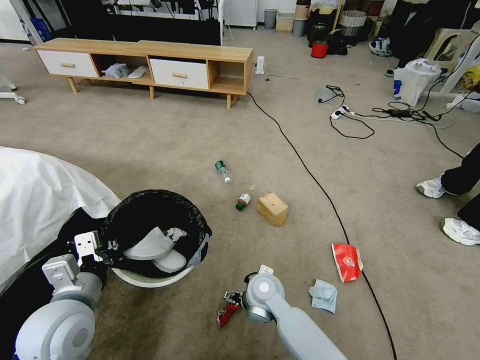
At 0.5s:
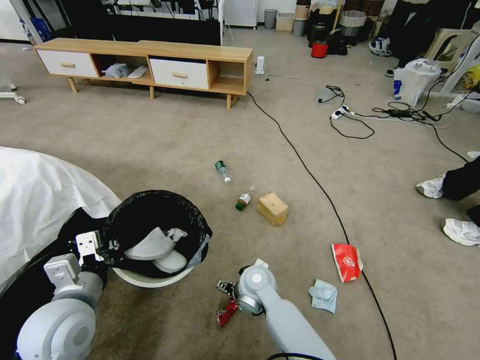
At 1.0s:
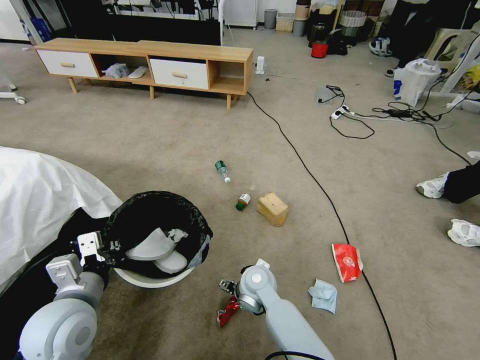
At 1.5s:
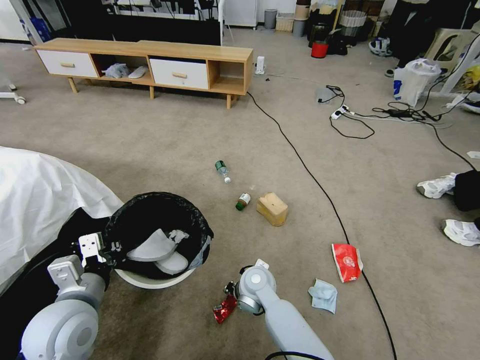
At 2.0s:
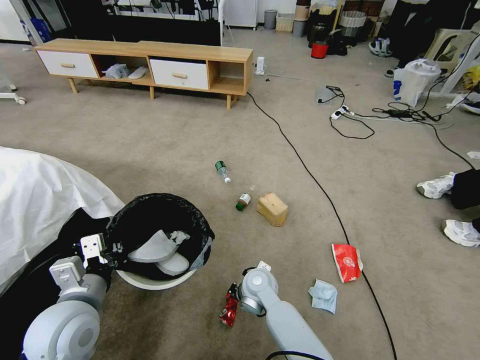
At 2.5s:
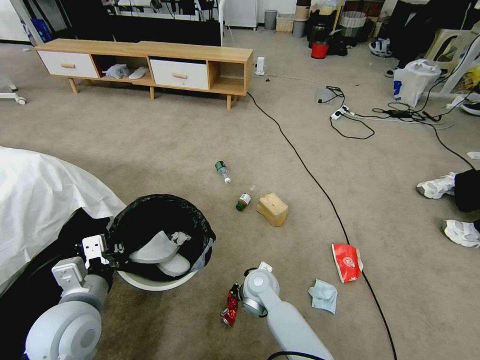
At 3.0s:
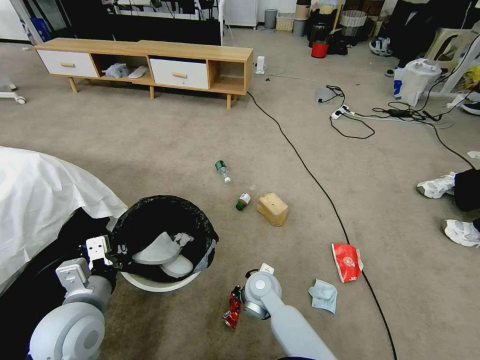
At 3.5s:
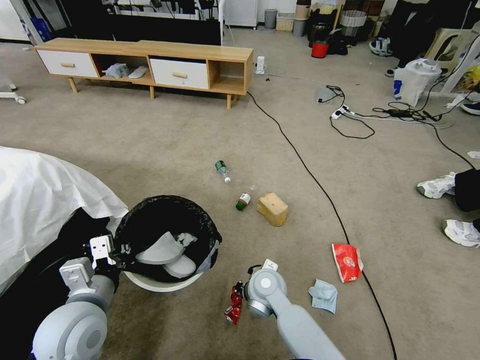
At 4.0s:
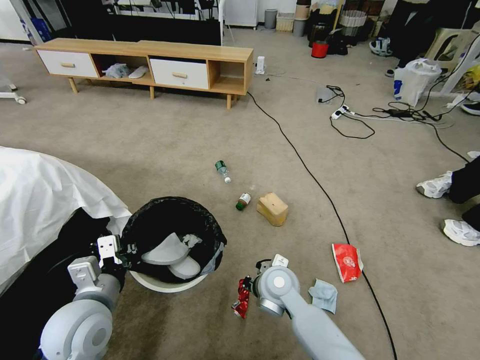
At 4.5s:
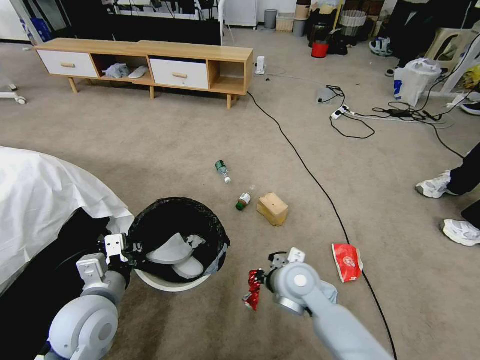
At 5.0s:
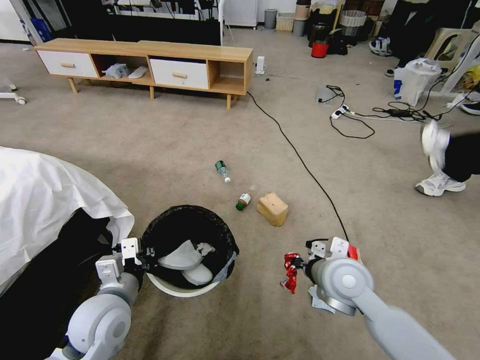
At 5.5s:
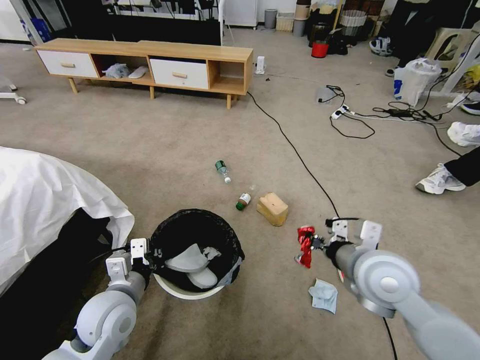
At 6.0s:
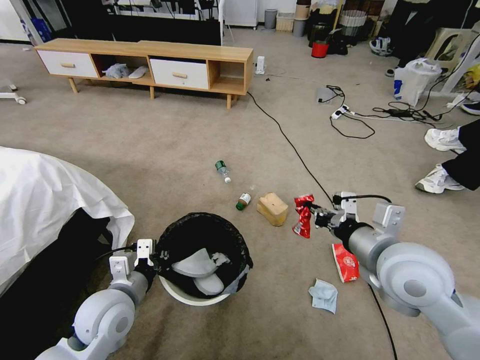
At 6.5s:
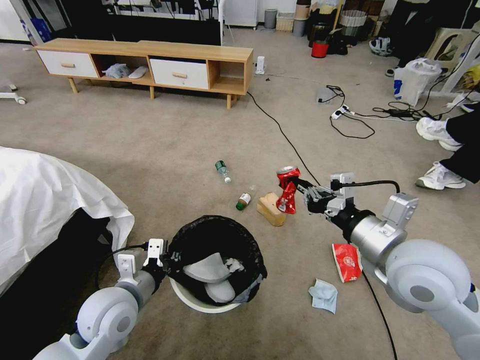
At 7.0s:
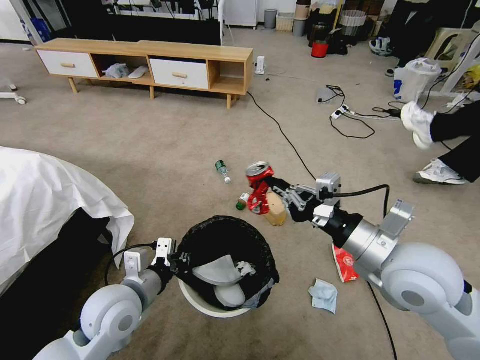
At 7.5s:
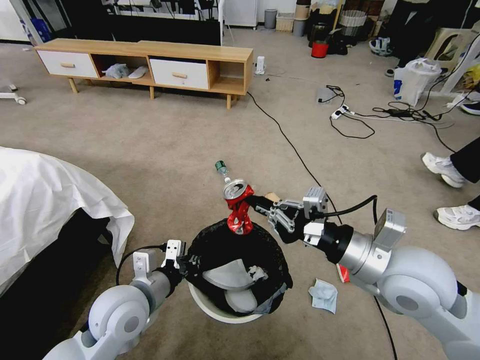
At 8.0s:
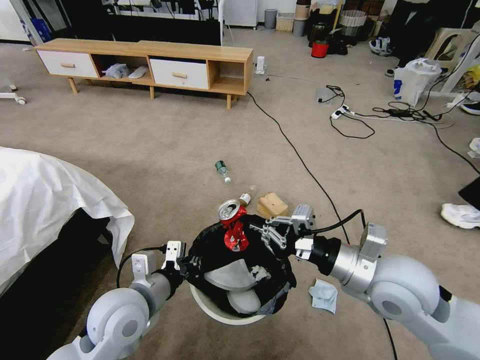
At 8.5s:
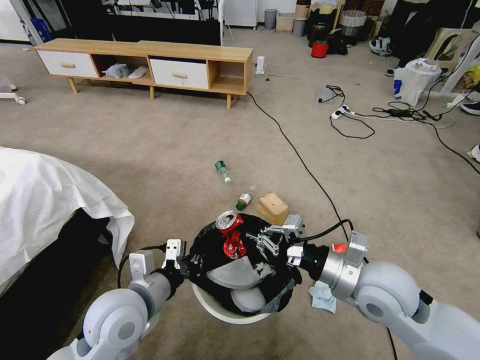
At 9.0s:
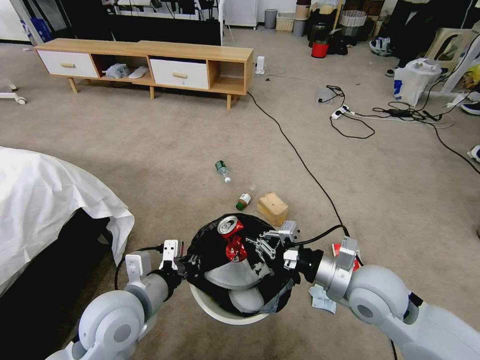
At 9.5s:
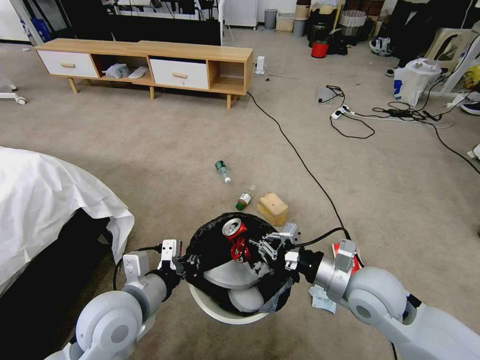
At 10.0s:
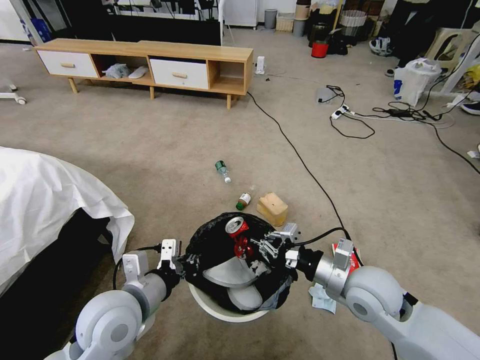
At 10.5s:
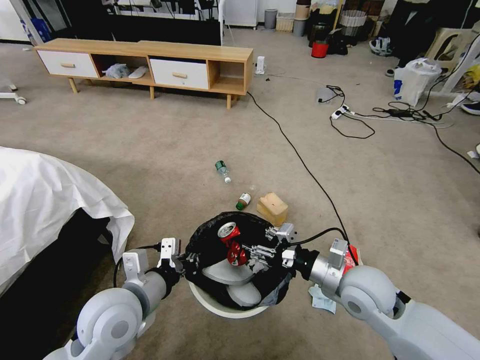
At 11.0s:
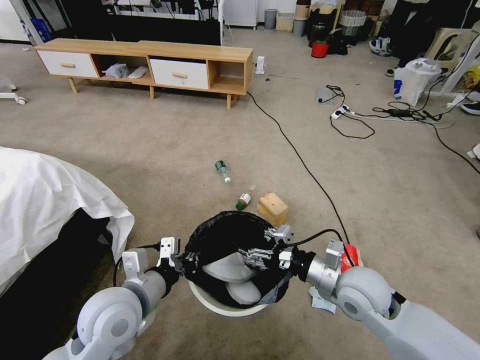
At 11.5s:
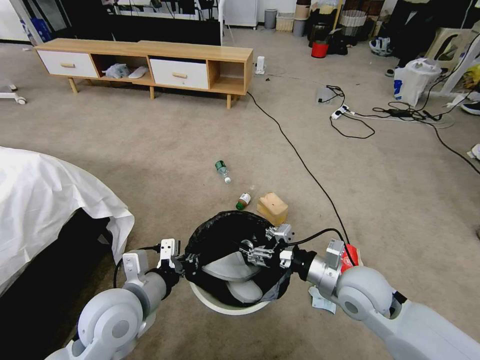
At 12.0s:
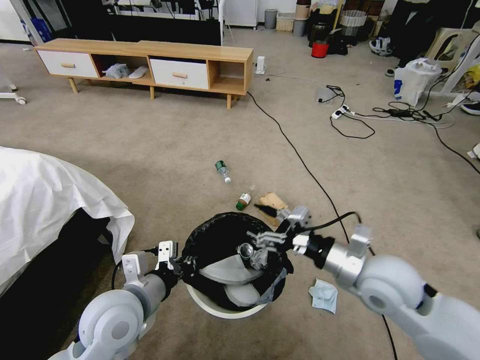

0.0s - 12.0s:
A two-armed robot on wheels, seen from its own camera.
Task of the whole recording: Pick up the trash bin and place the garbage on the floor into it.
0.0s - 2.0s: The right gripper closes its fingers.
2.0s - 4.0s: The right gripper goes roughly 5 cm upward.
4.0s - 6.0s: The right gripper is displaced upward and to the right by approximately 25 cm.
6.0s - 8.0s: The left gripper moves some 5 cm.
8.0s - 10.0s: The right gripper heads downward, covering roughly 10 cm.
10.0s - 12.0s: The left gripper closes its fingers. The right gripper opens up.

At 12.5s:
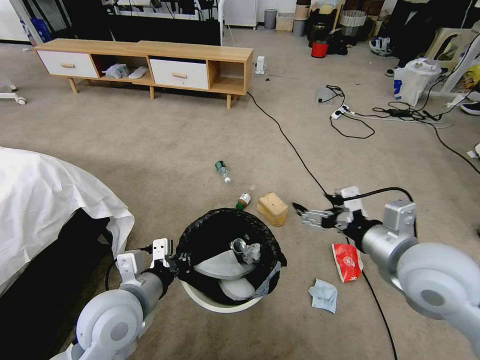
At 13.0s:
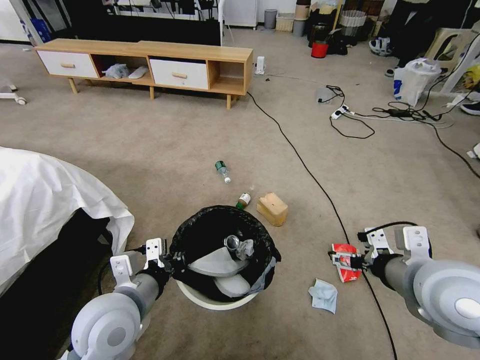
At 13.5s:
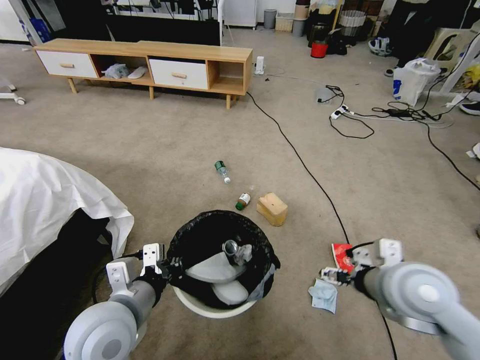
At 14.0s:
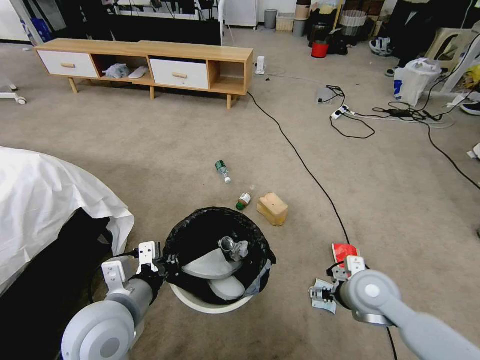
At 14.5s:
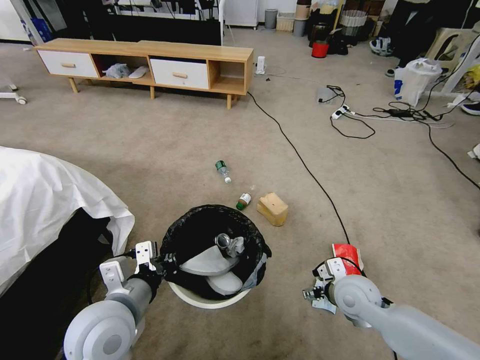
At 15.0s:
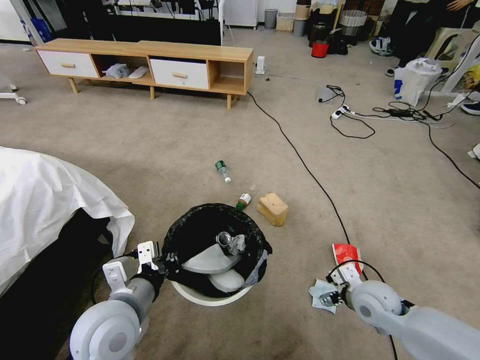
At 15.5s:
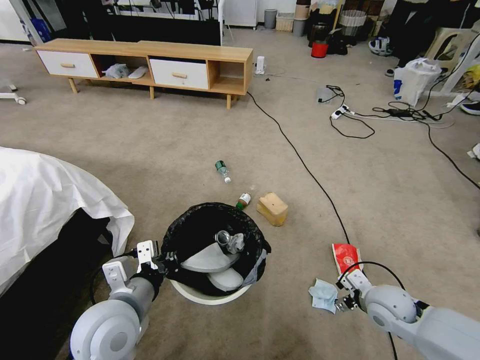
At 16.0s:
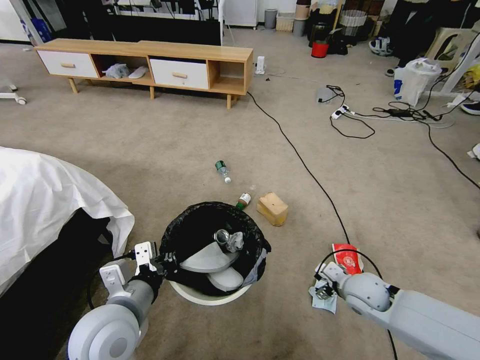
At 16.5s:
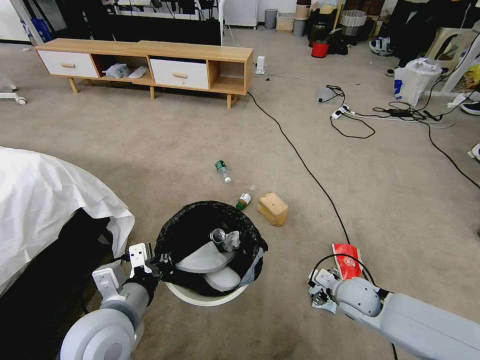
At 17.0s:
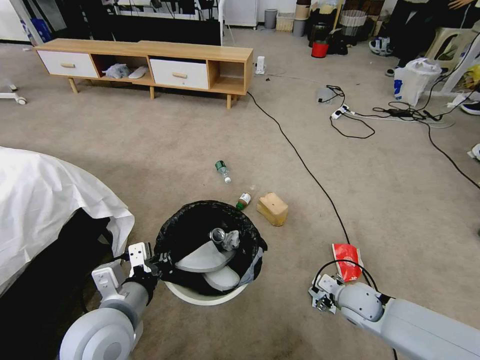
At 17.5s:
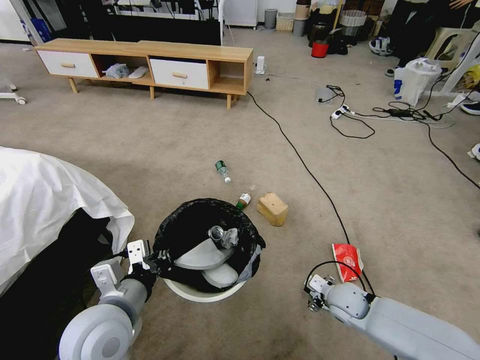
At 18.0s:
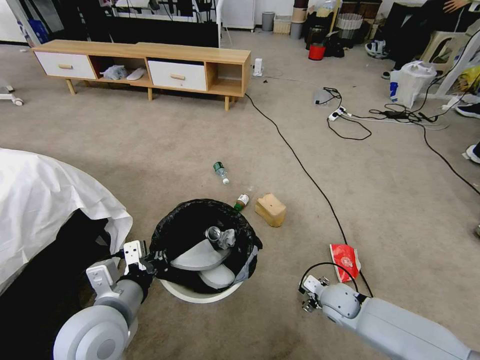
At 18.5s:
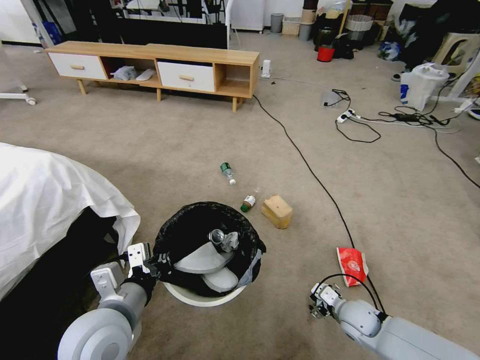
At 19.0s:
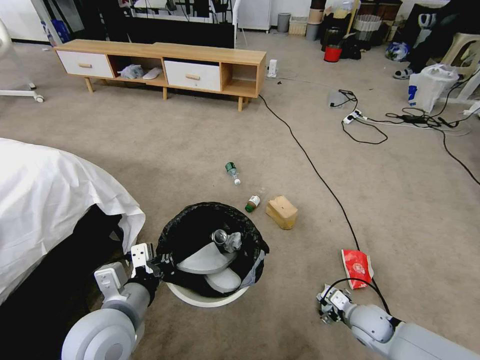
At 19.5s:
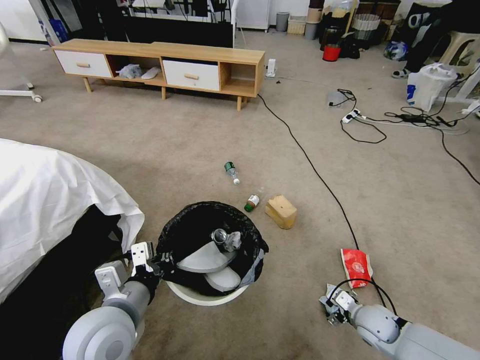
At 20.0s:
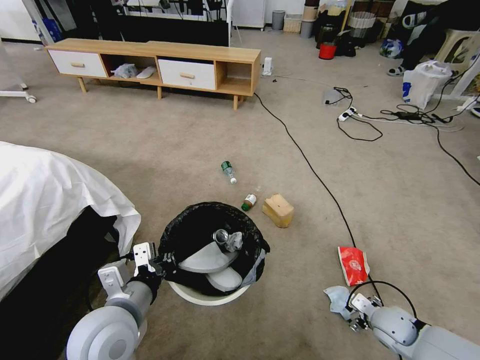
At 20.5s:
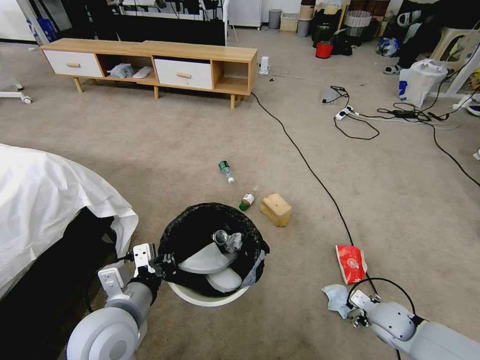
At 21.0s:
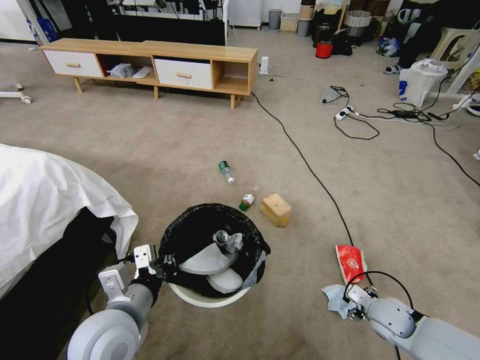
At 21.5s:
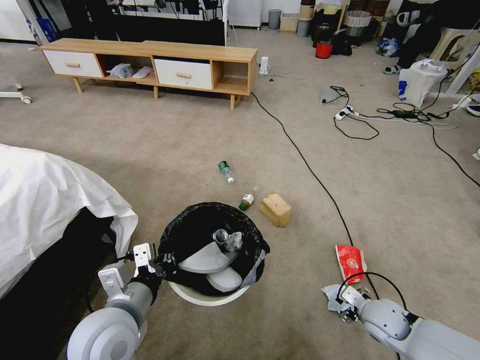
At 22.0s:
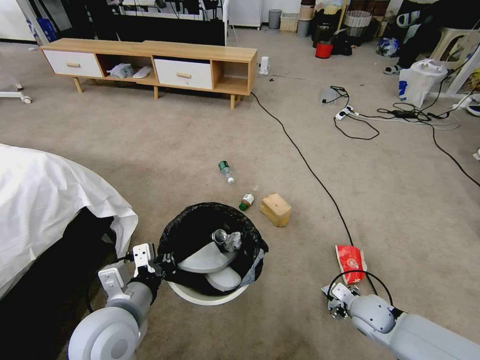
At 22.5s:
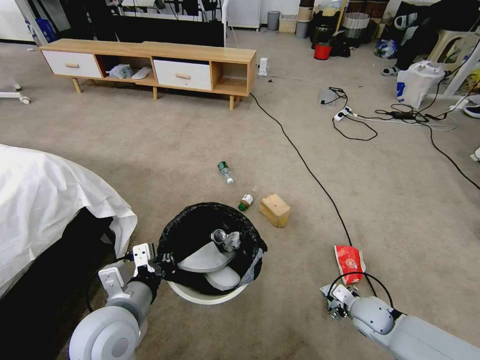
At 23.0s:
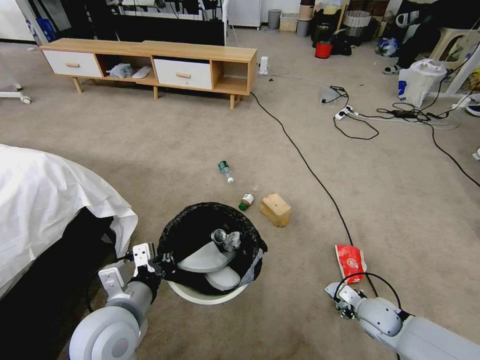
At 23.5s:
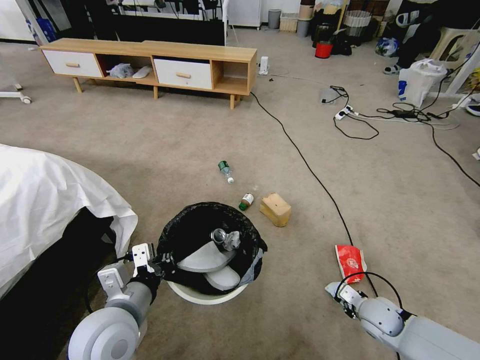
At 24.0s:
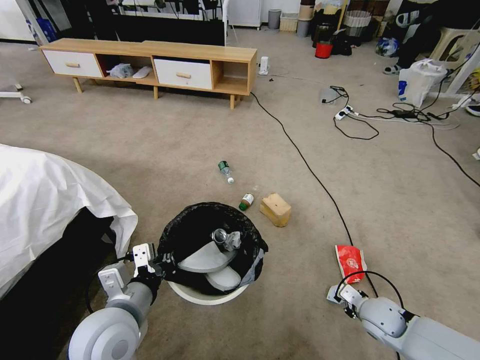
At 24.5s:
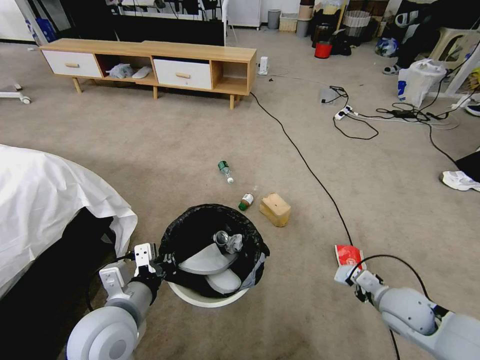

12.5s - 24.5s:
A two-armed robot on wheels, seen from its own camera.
Task of the whole recording: Pick up the trash bin and place the garbage on the floor into it.
12.5s - 14.5s: The right gripper is displaced downward by about 20 cm.
14.5s - 16.5s: The right gripper is displaced downward by some 5 cm.
16.5s - 18.5s: The right gripper moves downward, roughly 5 cm.
18.5s - 20.5s: The right gripper heads to the right, covering roughly 10 cm.
20.5s - 22.5s: The grippers make only small movements.
22.5s - 24.5s: The right gripper travels upward by about 10 cm, and closes up.

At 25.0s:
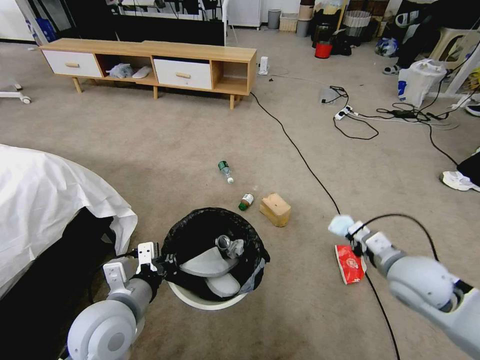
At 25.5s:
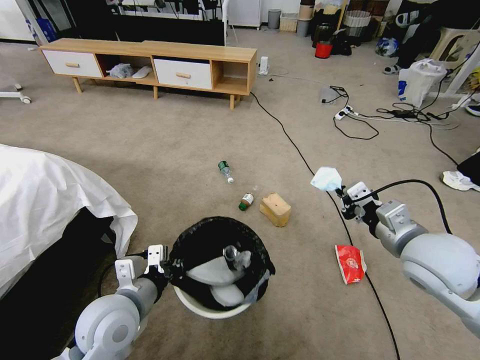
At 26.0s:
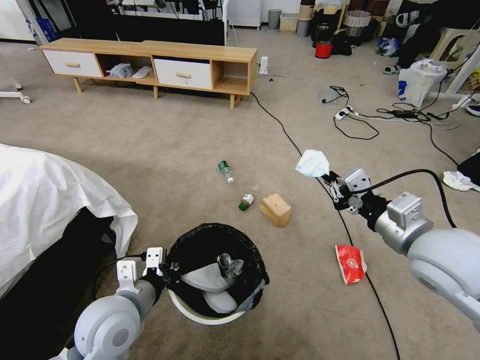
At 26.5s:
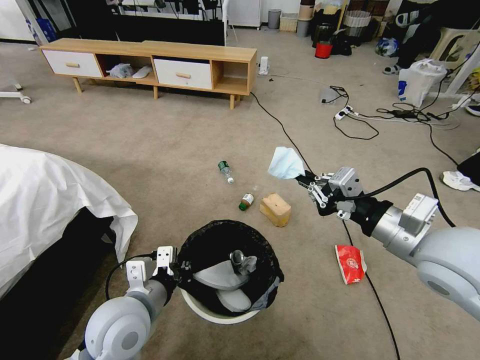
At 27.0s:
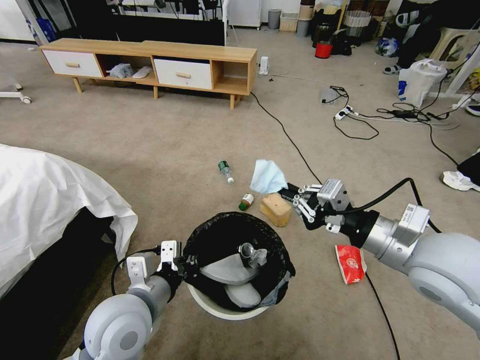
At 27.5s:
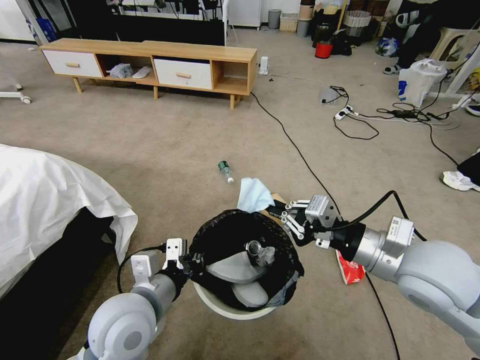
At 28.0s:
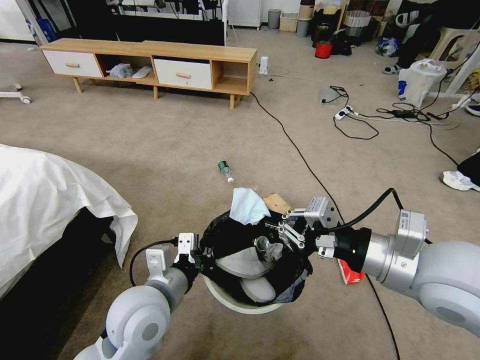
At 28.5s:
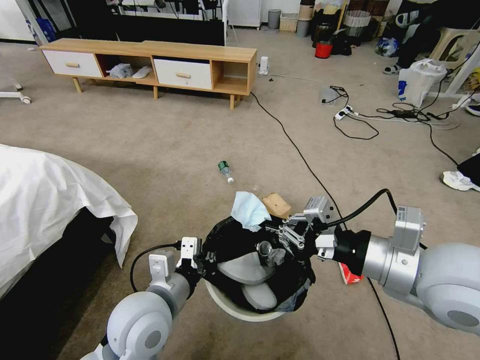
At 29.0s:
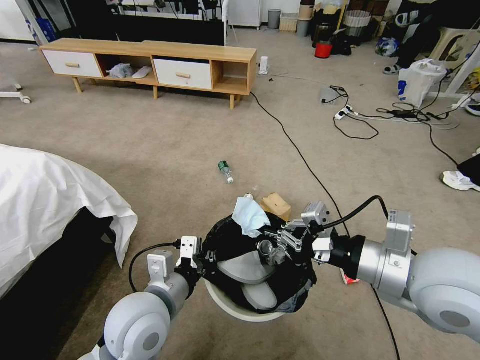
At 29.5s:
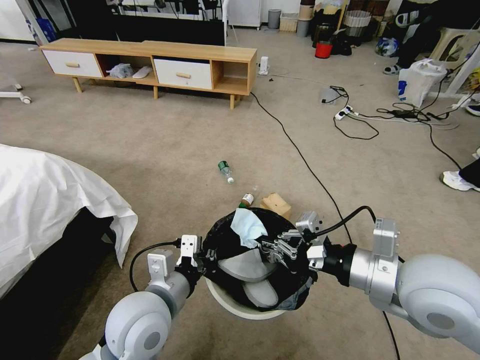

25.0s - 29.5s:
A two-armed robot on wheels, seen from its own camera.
Task of the whole recording: Pick up the trash bin and place the garbage on the floor into it.
25.0s - 27.0s: The right gripper travels upward by about 10 cm.
